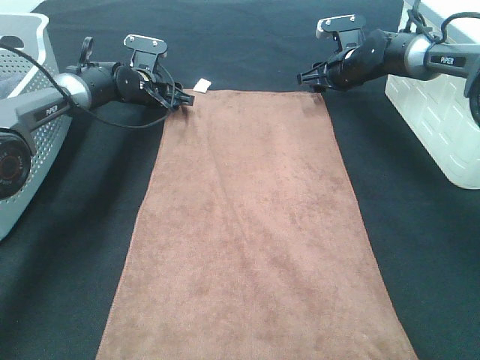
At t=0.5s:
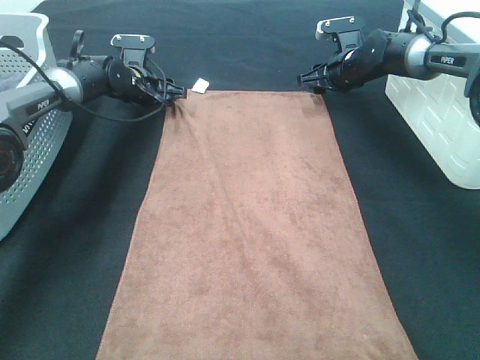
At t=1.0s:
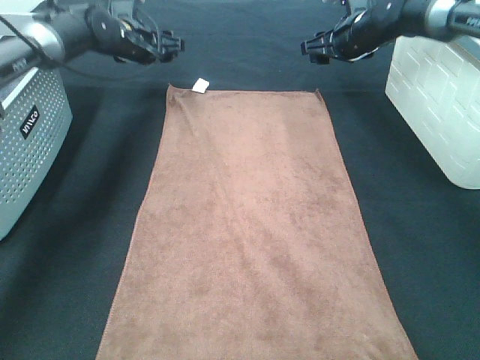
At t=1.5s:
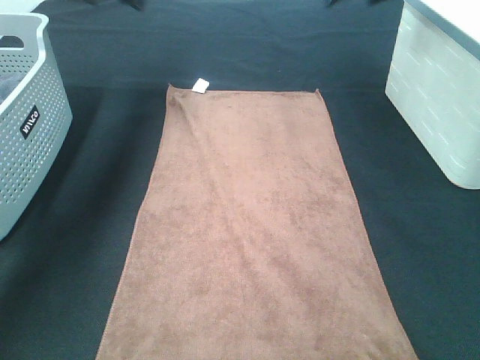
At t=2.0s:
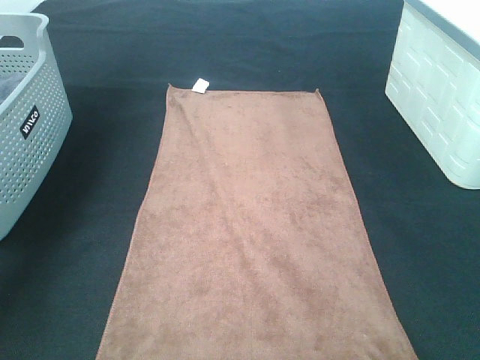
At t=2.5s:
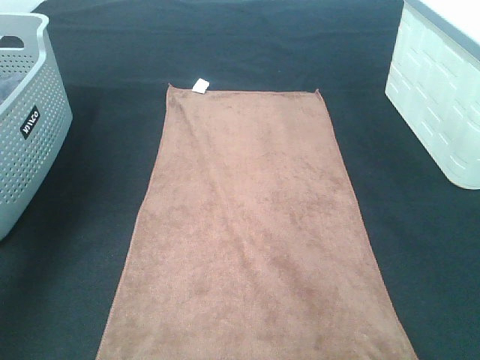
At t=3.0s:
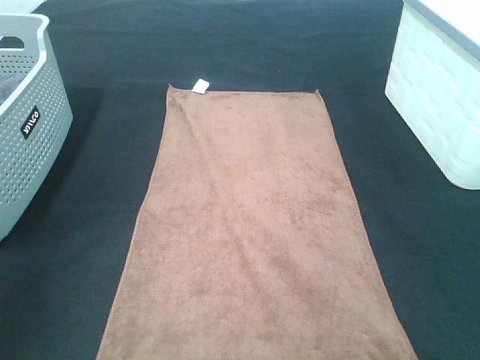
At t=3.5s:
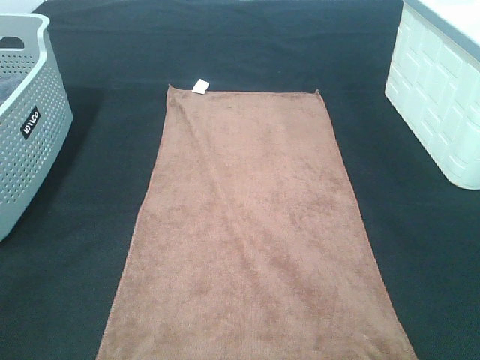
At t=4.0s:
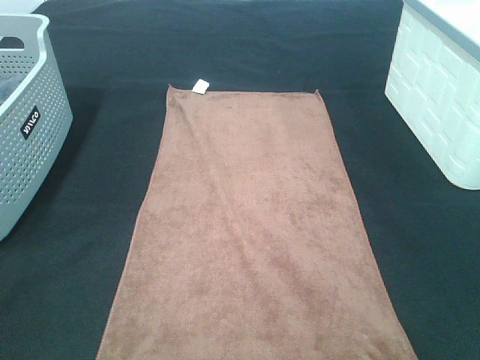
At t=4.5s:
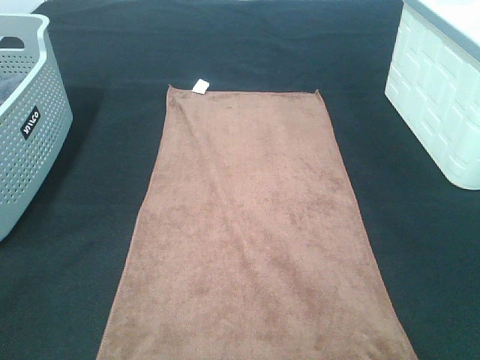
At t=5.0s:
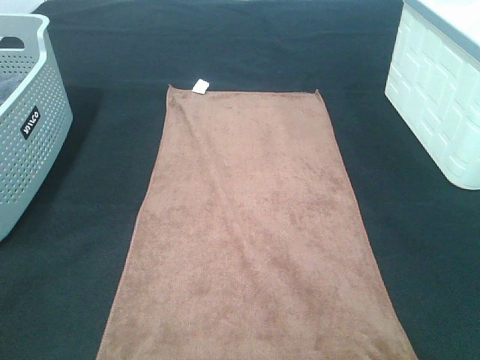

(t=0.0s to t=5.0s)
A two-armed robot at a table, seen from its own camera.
Task of the whole recording: Remove the towel and place it.
t=0.0s - t=2.5s: The grippers both shift upward and backward by approximately 40 cm.
t=2.5s - t=5.0s: The left gripper heads backward, covering about 35 cm.

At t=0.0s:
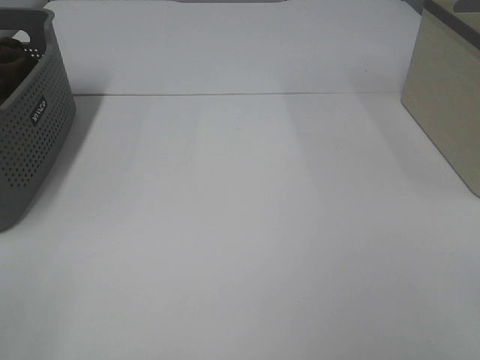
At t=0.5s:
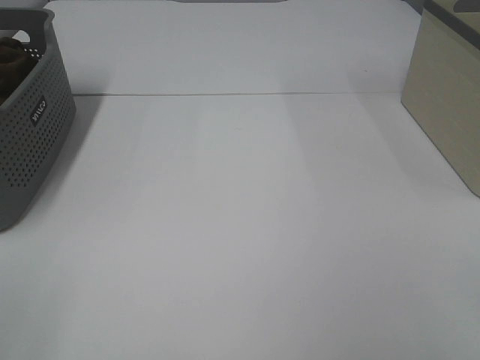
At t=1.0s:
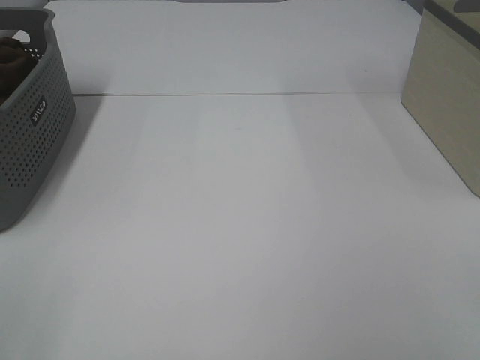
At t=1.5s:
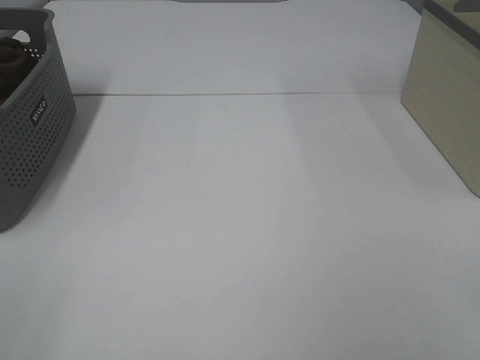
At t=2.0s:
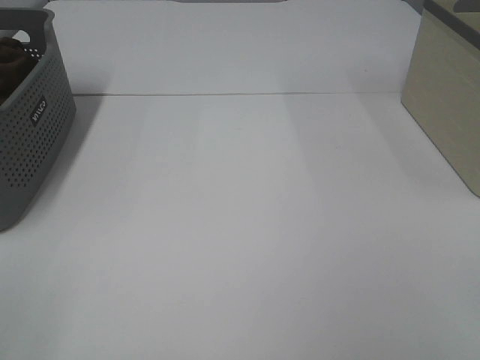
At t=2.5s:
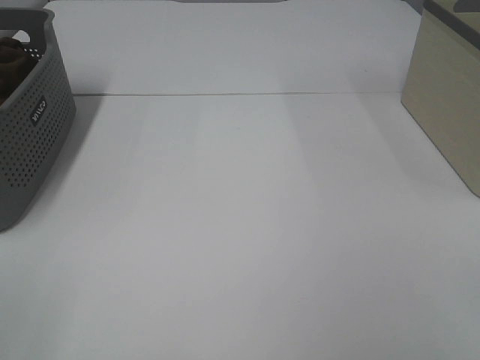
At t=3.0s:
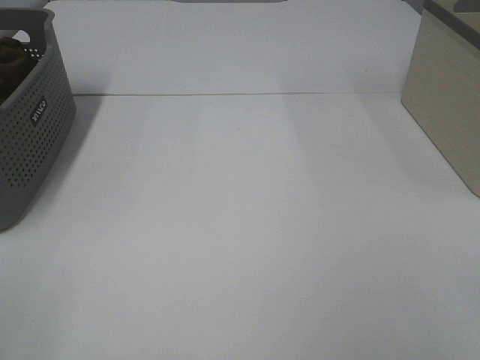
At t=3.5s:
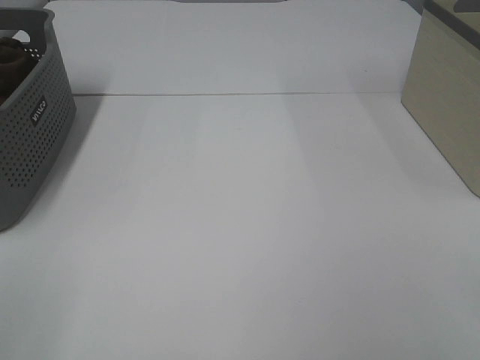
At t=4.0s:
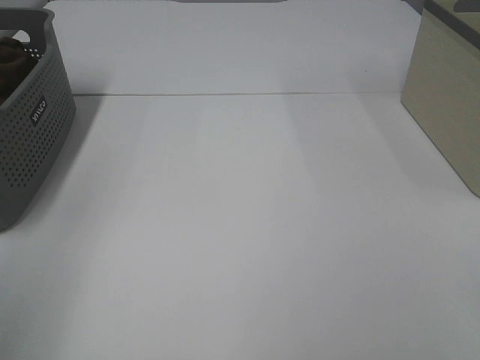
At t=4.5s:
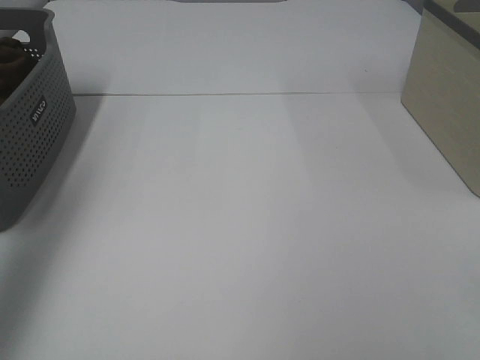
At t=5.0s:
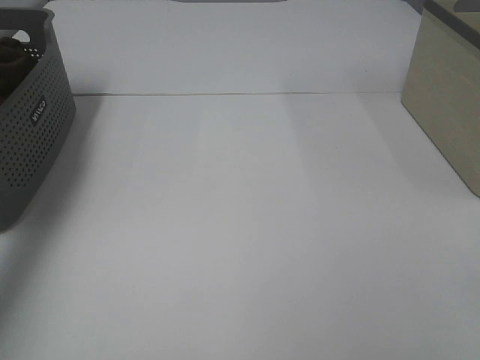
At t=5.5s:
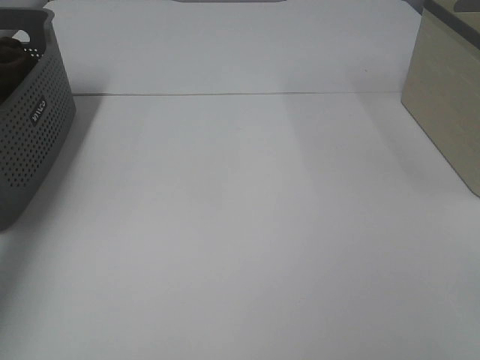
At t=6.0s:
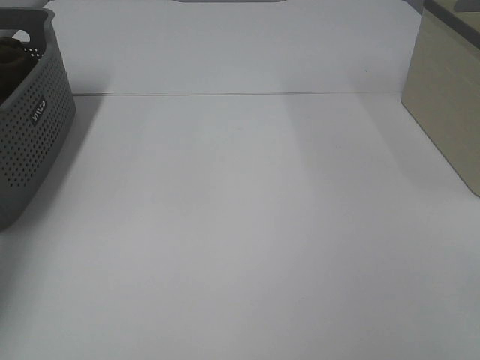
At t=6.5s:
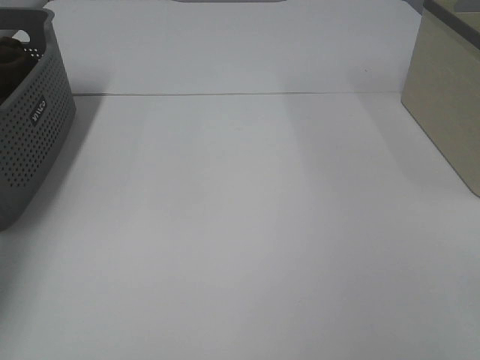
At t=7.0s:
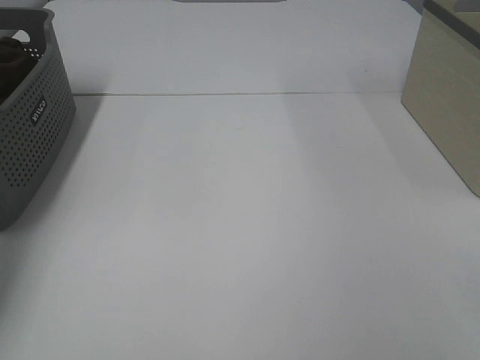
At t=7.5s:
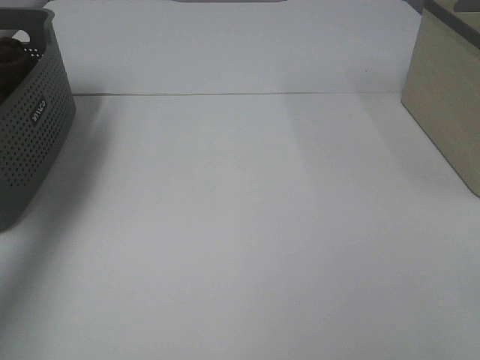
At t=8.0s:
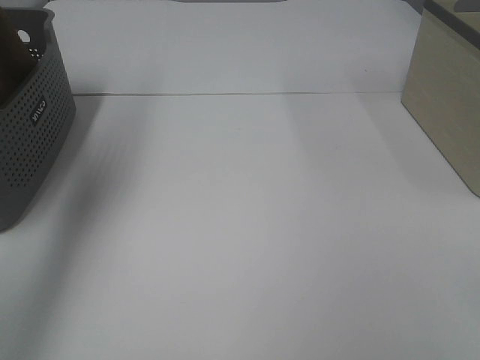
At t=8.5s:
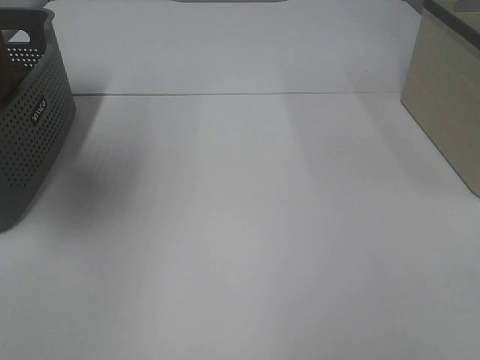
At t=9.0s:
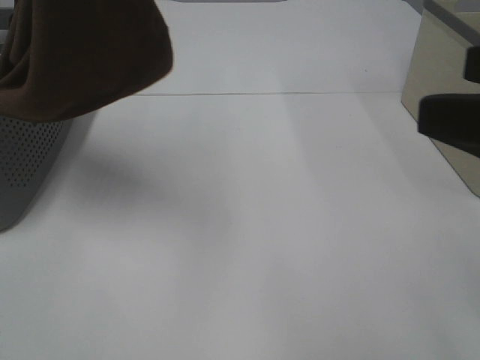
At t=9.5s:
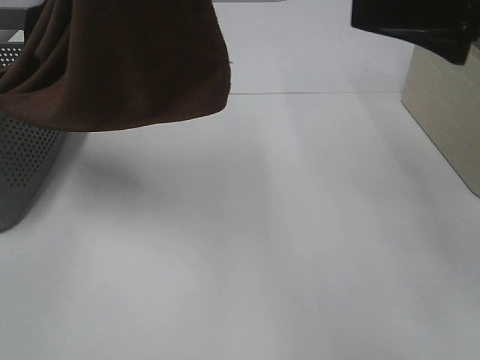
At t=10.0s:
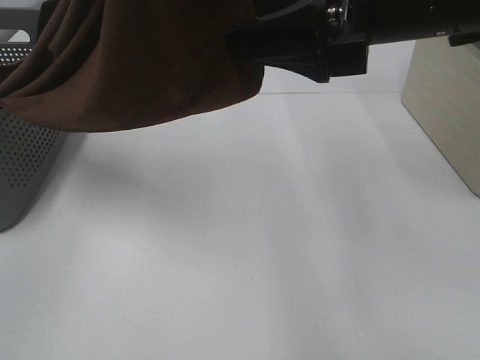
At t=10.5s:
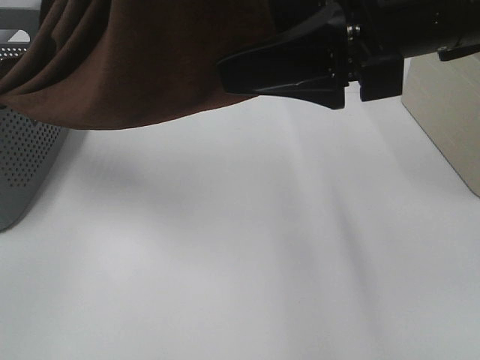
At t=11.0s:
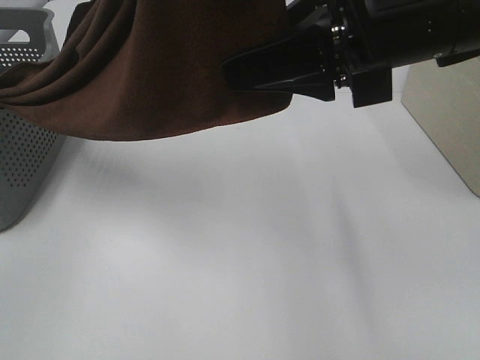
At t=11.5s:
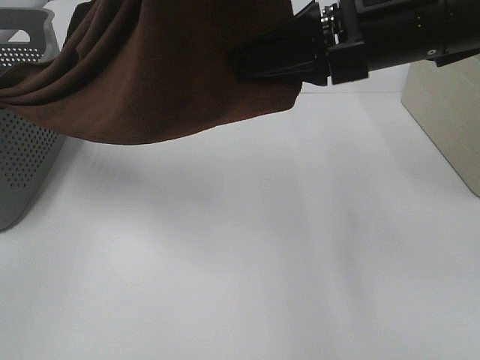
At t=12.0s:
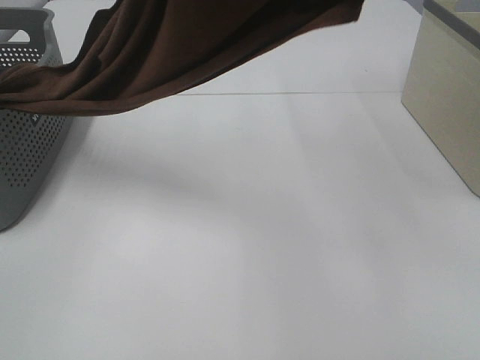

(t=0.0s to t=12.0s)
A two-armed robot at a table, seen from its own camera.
Task of the whole recording: Remove the towel and place it.
Step, t=7.5s - t=11.0s: Right hand: grab a corner of the brown towel and straighten it.
t=0.0s - t=2.0s: The two grippers keep their place.
t=4.0s - t=6.0s: The left gripper travels forward and downward by some 40 cm.
t=6.0s - t=8.0s: The left gripper travels upward, backward and to the right by roughly 30 cm, and closes its fingers.
t=8.0s - t=10.0s: The left gripper goes about 20 cm to the right and backward, while the right gripper goes roughly 30 cm forward and to the left.
t=10.0s - t=12.0s: The right gripper shifts approximately 10 cm upward, and closes.

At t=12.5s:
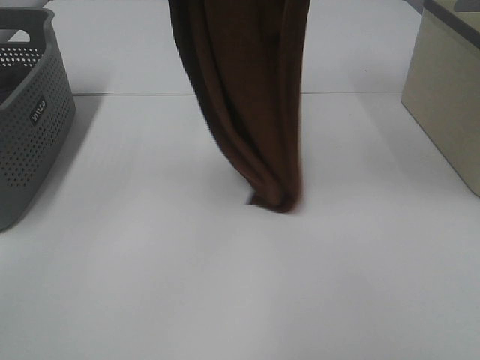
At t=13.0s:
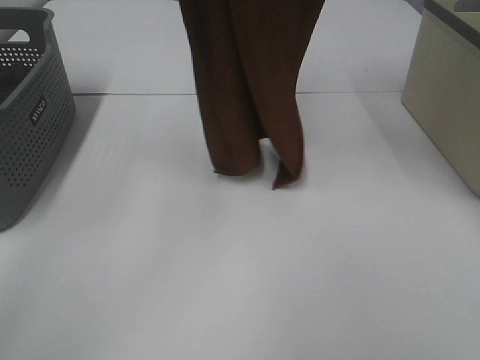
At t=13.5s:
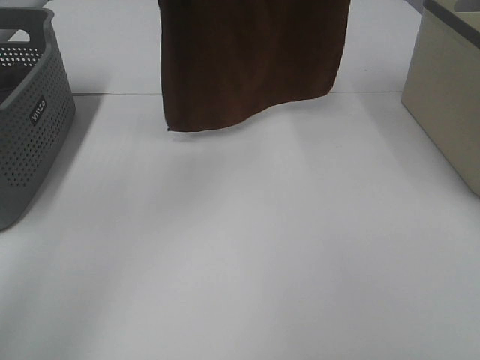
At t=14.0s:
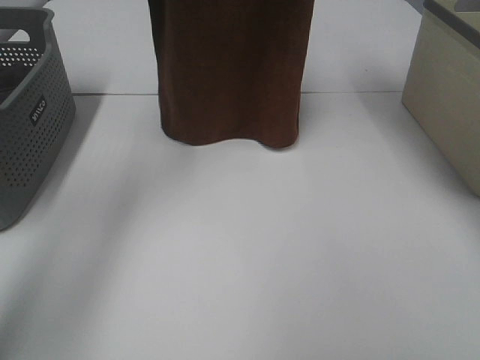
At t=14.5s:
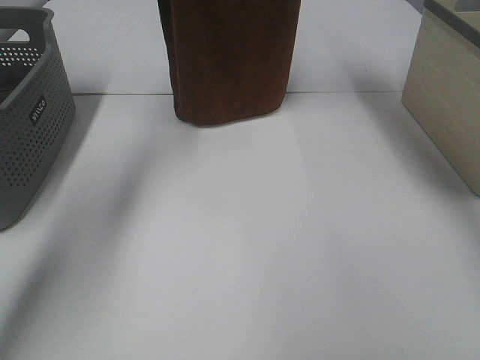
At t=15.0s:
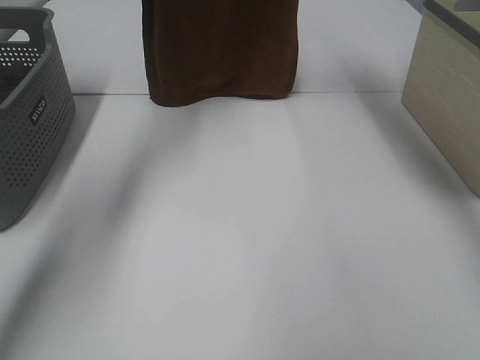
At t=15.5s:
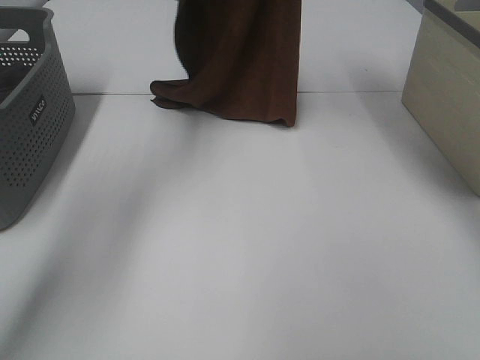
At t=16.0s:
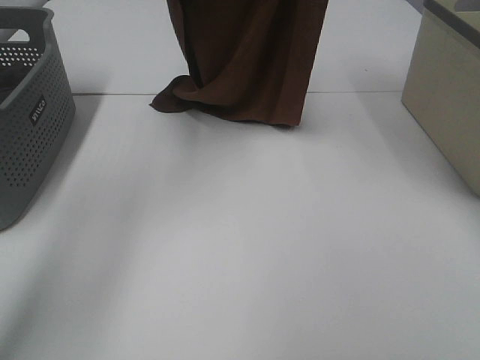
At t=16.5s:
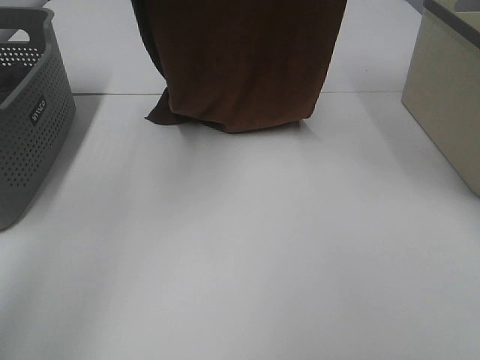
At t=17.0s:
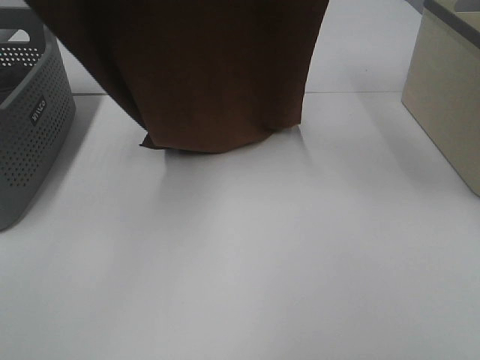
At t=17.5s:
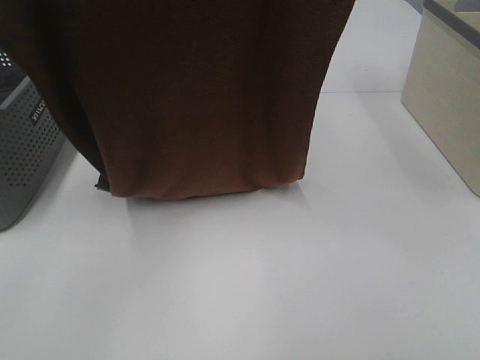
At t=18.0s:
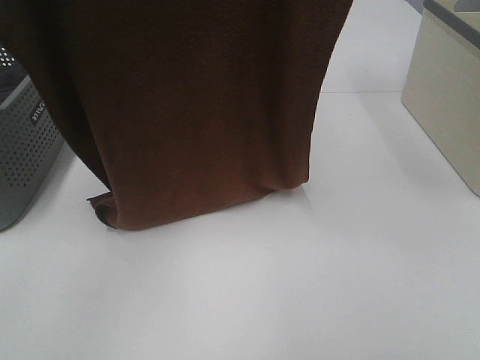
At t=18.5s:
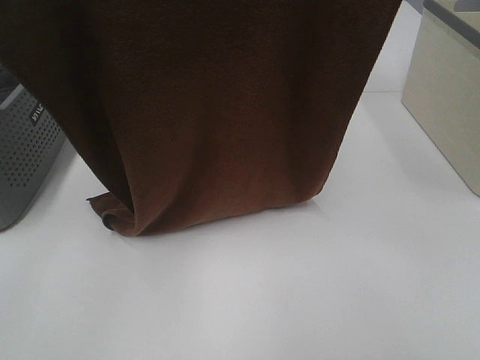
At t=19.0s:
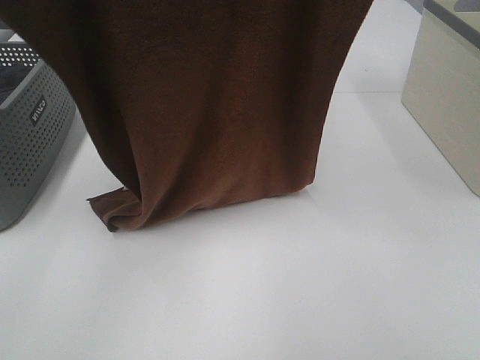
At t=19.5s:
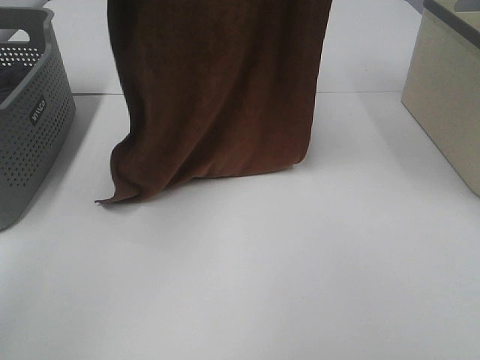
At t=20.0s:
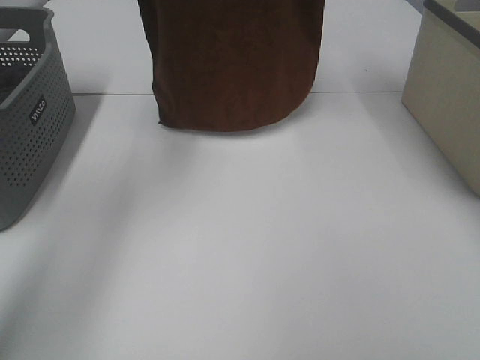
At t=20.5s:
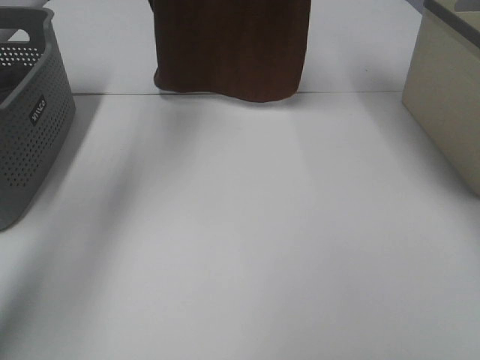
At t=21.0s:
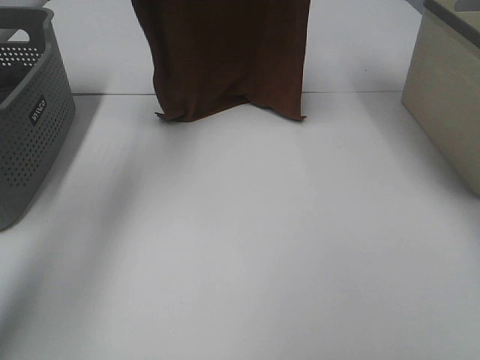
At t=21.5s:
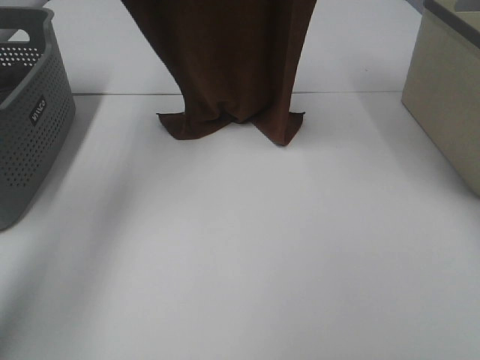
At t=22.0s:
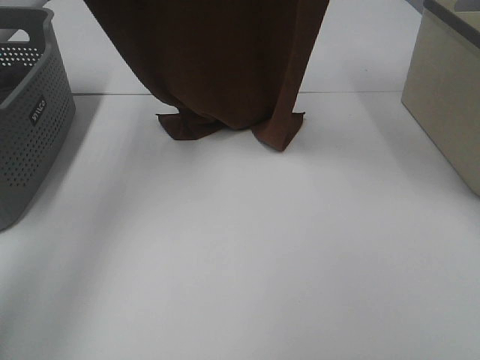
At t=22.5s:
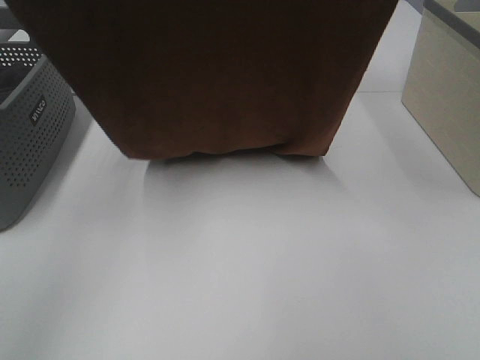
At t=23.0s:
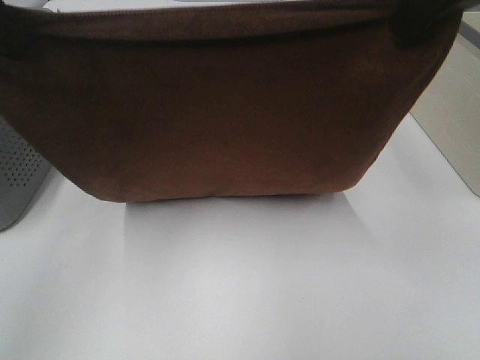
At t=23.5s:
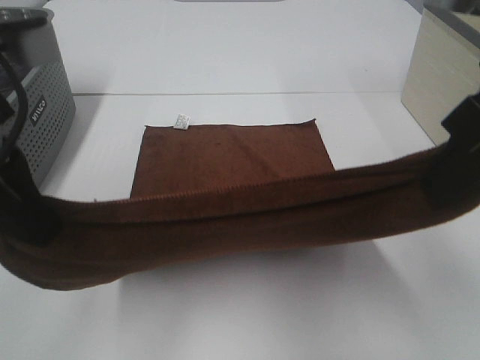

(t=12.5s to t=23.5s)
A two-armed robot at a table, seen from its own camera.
Task of the whole recording: Remove the towel and place it.
Step, t=12.5s - t=21.5s: Left hand: spread the brown towel flat on the table.
Step, t=12.5s - t=21.5s: Right hand: spread the brown towel flat on the table.
t=12.5s - t=14.5s: The grippers both shift forward by roughly 20 cm.
t=14.5s - t=16.0s: Both grippers travel together backward, approximately 10 cm.
t=16.0s - t=18.0s: The right gripper goes some 15 cm backward; the left gripper moves backward, about 25 cm.
t=18.0s - t=20.0s: The left gripper shifts about 25 cm forward, while the right gripper goes roughly 15 cm forward.
t=20.0s - t=21.5s: The grippers both shift downward by about 5 cm.
t=21.5s - t=23.5s: Both grippers move backward and downward, some 30 cm.
